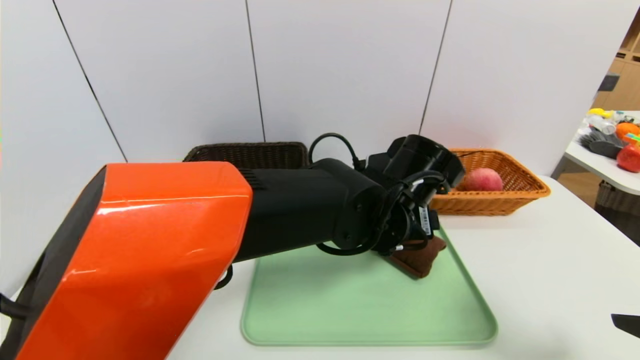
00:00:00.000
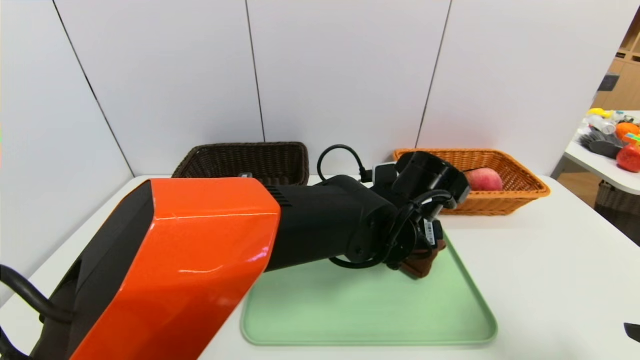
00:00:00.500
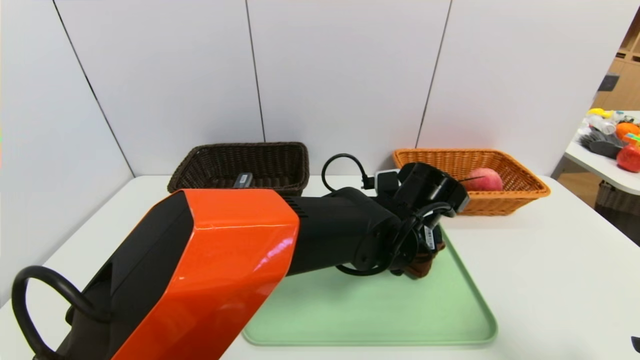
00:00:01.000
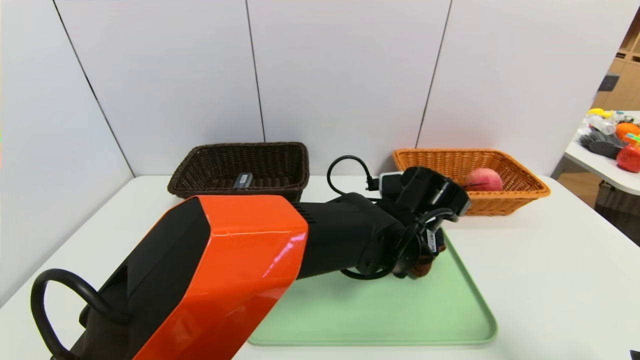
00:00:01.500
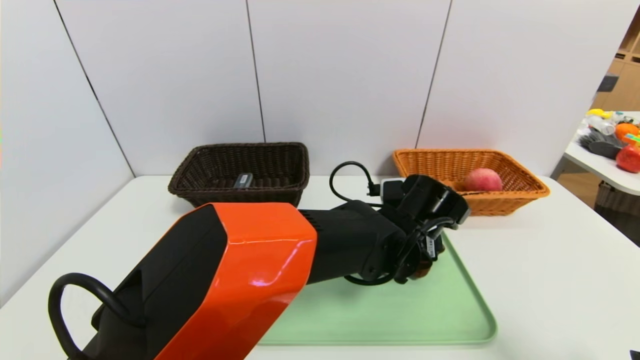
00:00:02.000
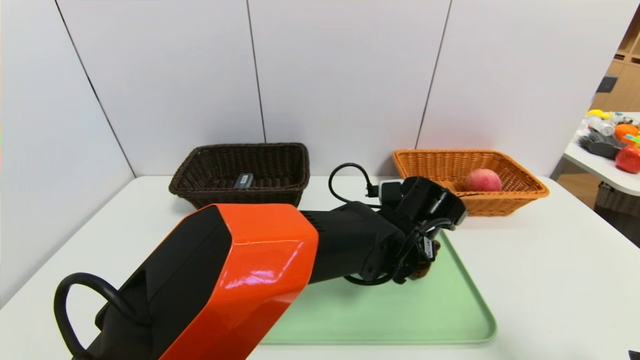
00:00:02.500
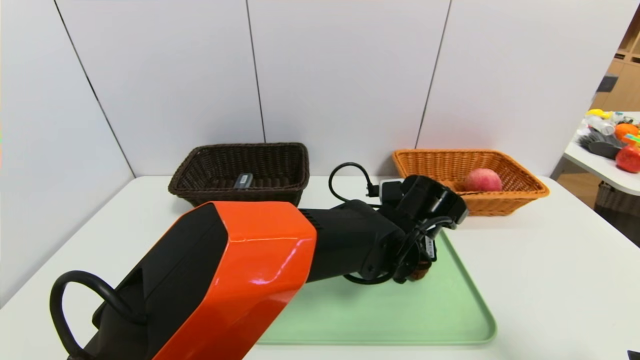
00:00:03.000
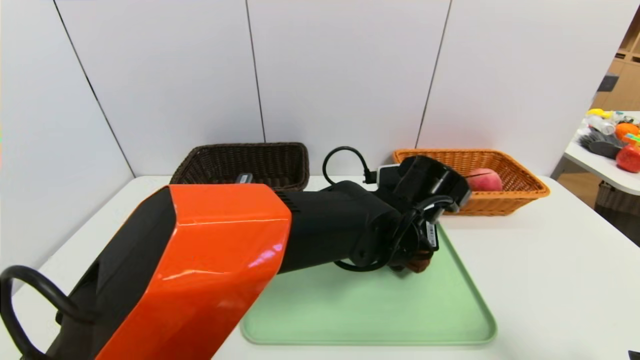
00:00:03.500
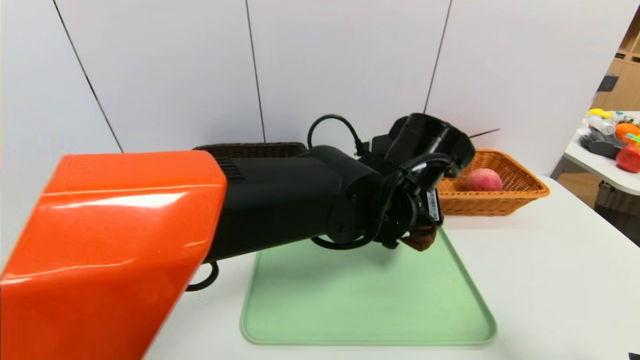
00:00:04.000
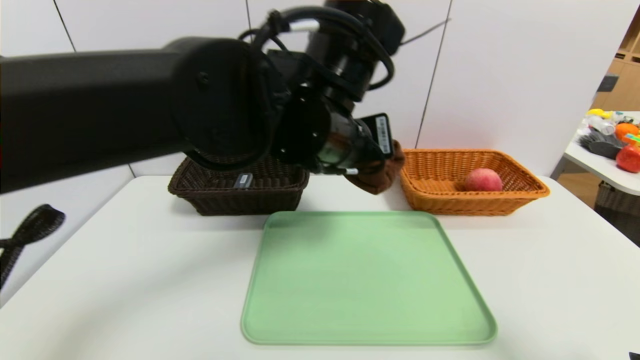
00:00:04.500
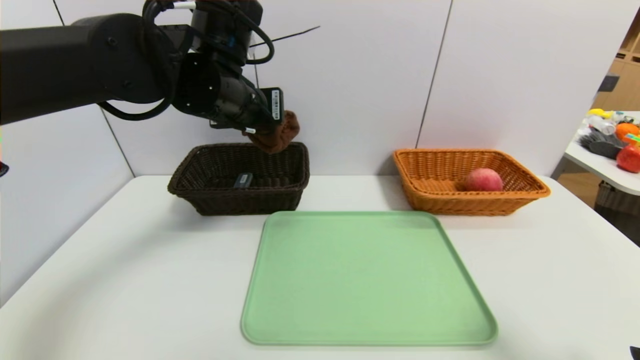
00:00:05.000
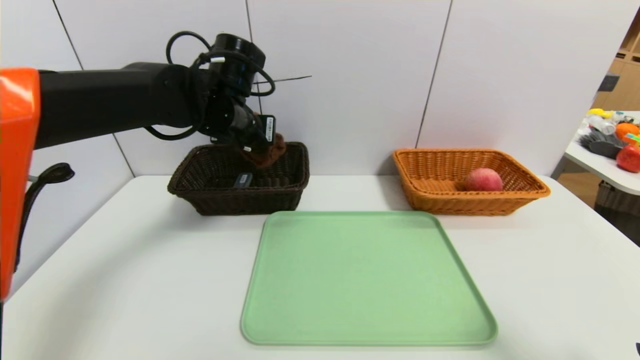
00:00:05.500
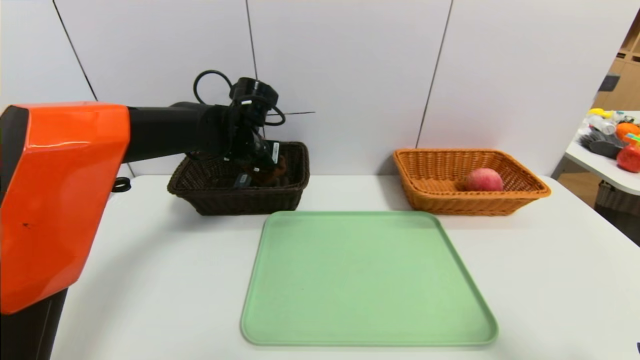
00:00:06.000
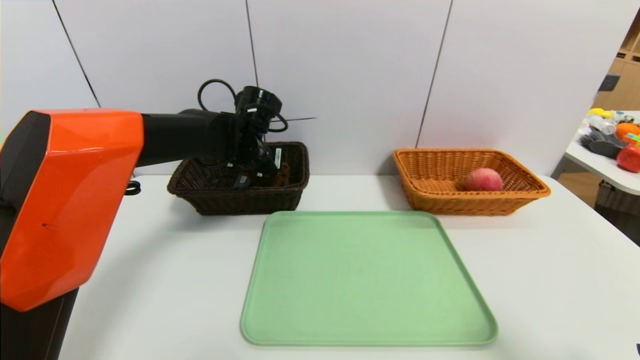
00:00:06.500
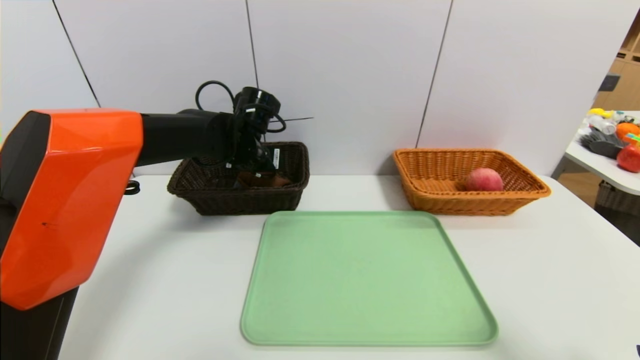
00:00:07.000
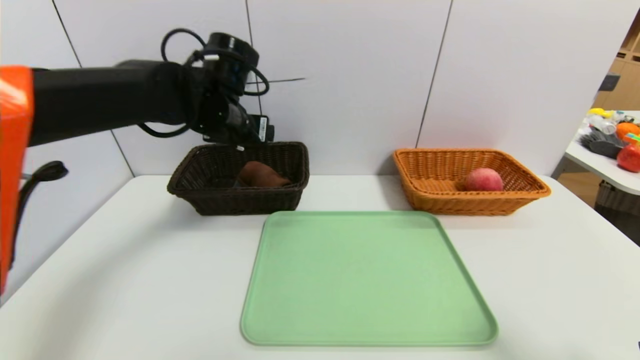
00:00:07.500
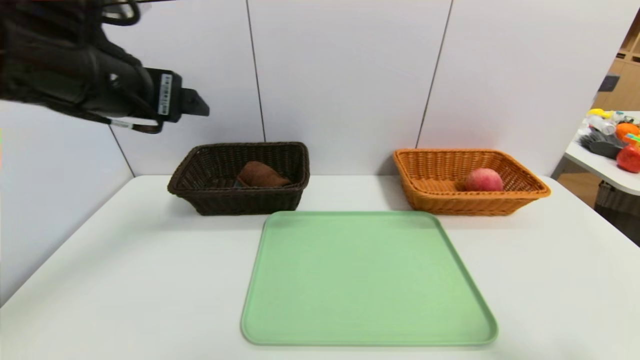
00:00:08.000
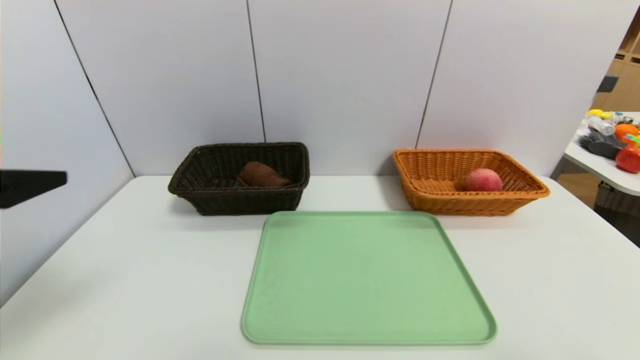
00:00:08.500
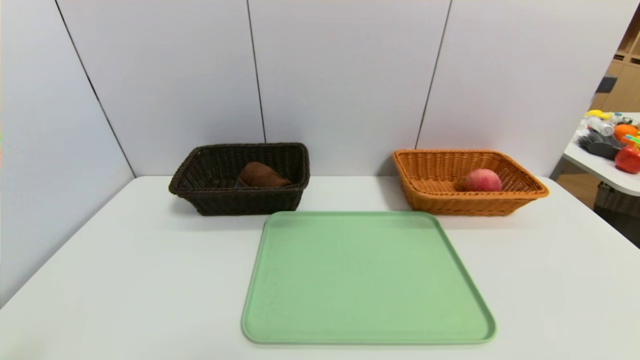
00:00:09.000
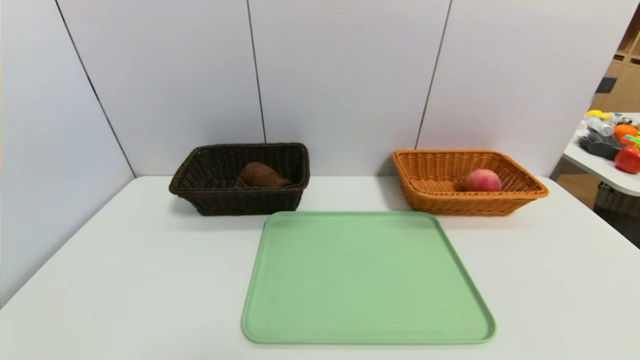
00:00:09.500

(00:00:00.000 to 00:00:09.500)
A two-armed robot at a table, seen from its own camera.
Task of the whole recording: place the food in the right basket with the right gripper, and place the non food items in the left basket with the left gripper.
Step, 00:00:00.000 - 00:00:06.500: Grasp the brown towel and put it in the left basket.
00:00:00.000 - 00:00:02.000: The left gripper travels downward by roughly 5 cm.
00:00:02.000 - 00:00:04.000: The left gripper heads upward, covering about 10 cm, and closes.
00:00:04.000 - 00:00:05.500: The left gripper goes some 25 cm to the left and forward.
00:00:05.500 - 00:00:07.500: The left gripper travels downward and back again, approximately 5 cm each way, and opens.
00:00:07.500 - 00:00:09.500: The left gripper moves backward and to the left, some 40 cm. Meanwhile the right gripper is displaced backward by some 10 cm.

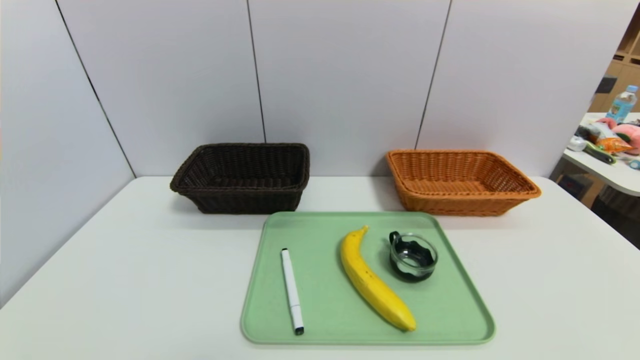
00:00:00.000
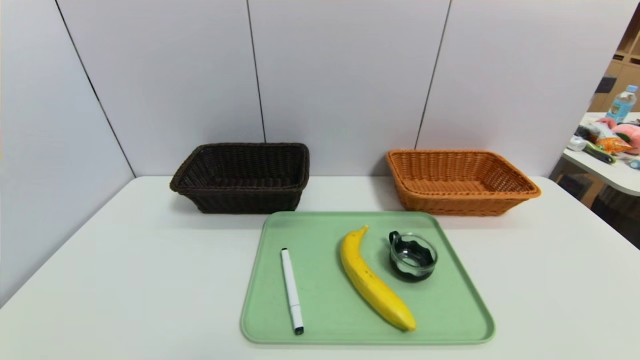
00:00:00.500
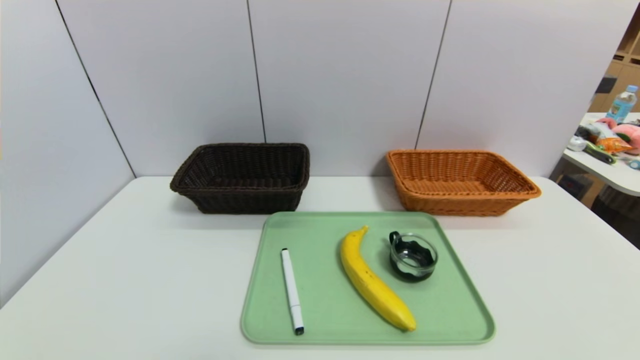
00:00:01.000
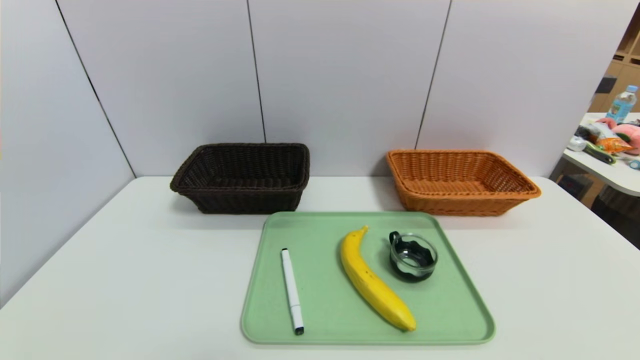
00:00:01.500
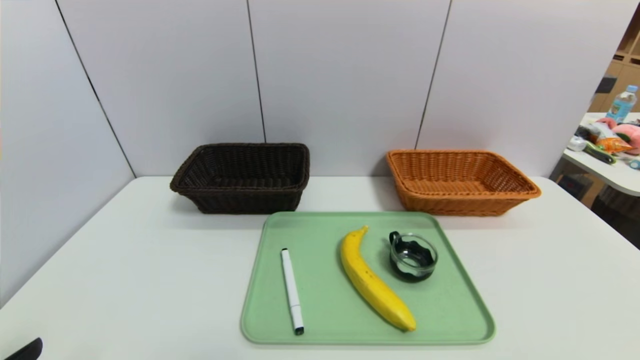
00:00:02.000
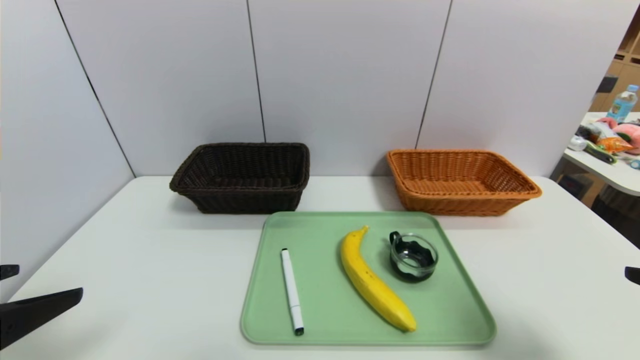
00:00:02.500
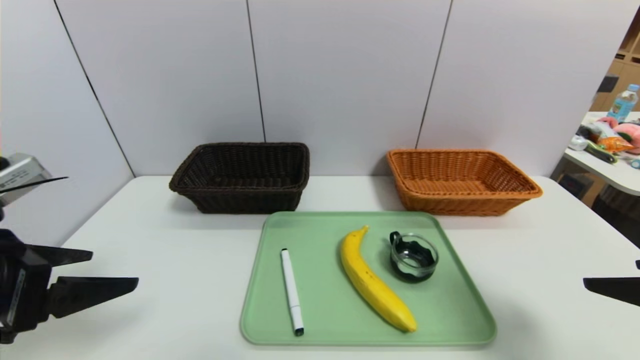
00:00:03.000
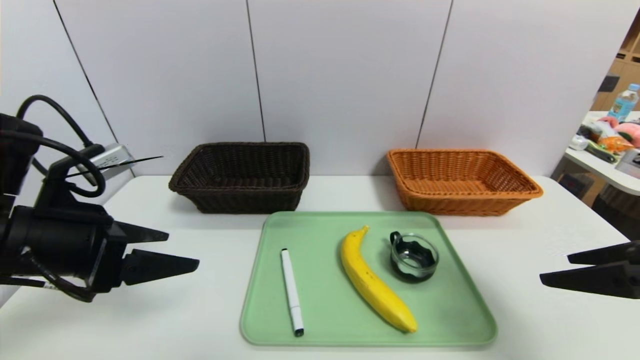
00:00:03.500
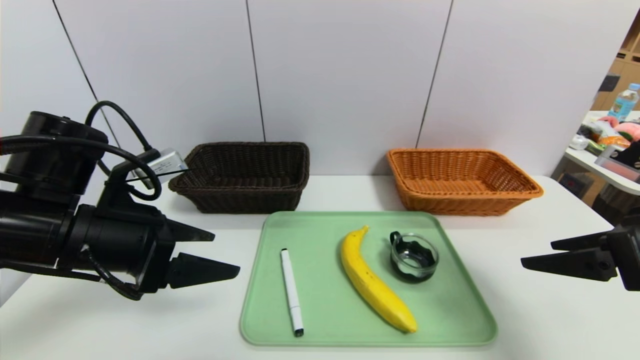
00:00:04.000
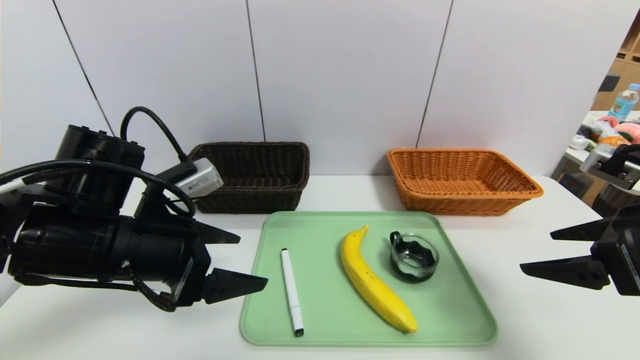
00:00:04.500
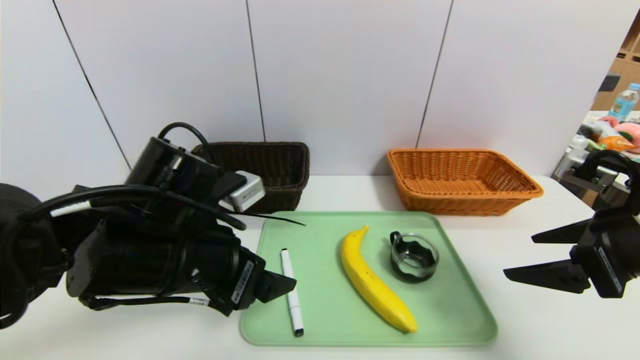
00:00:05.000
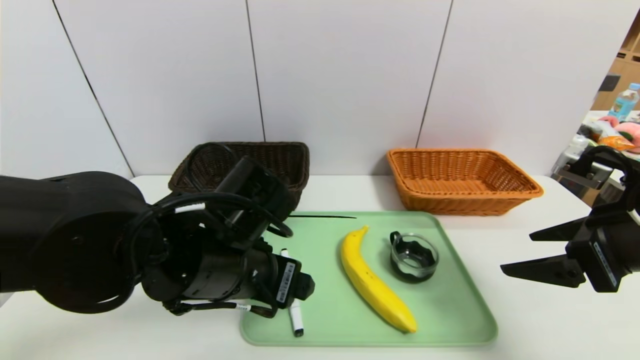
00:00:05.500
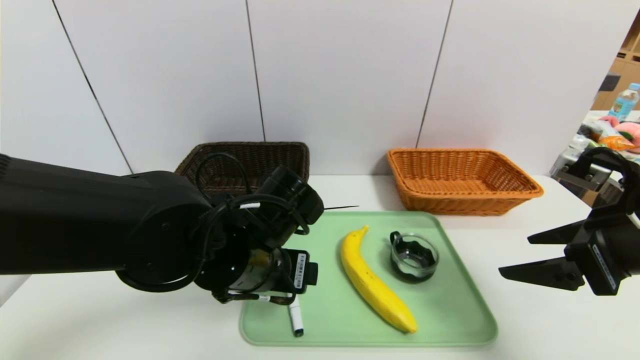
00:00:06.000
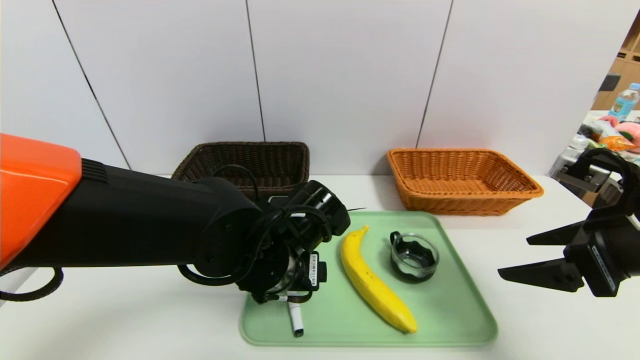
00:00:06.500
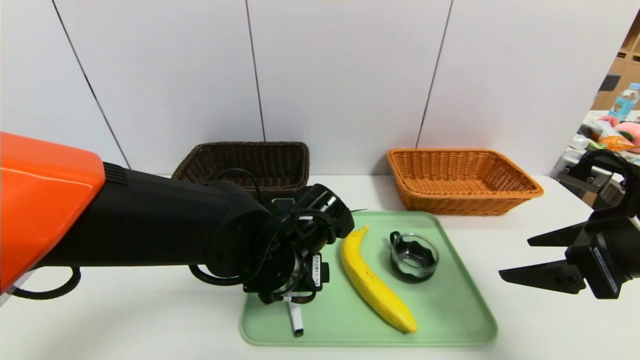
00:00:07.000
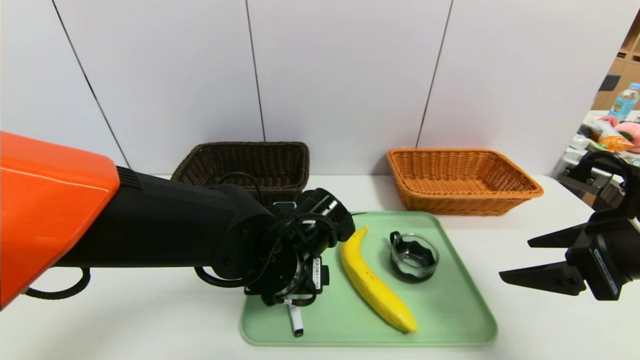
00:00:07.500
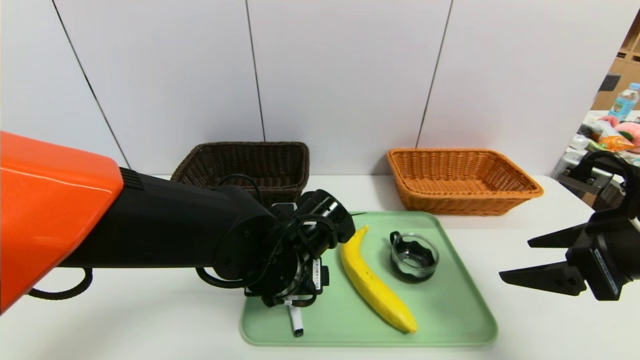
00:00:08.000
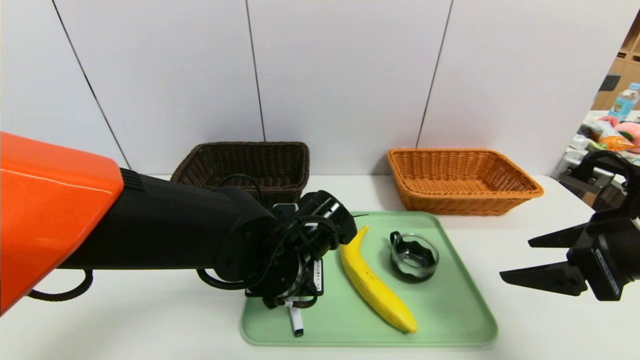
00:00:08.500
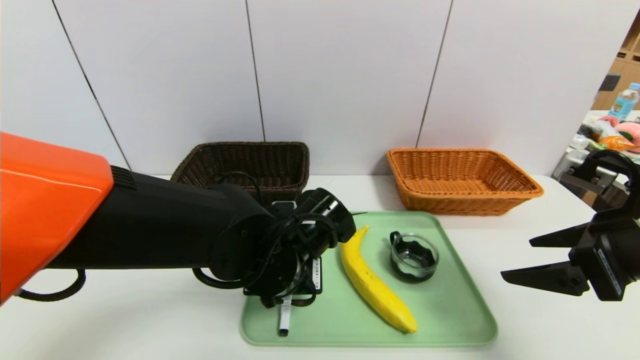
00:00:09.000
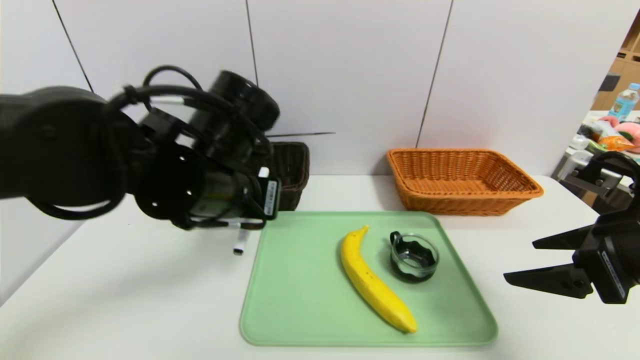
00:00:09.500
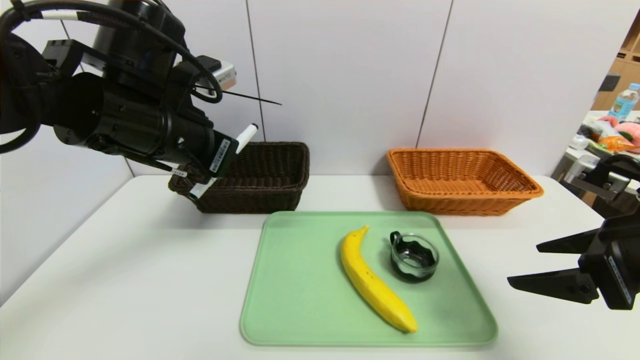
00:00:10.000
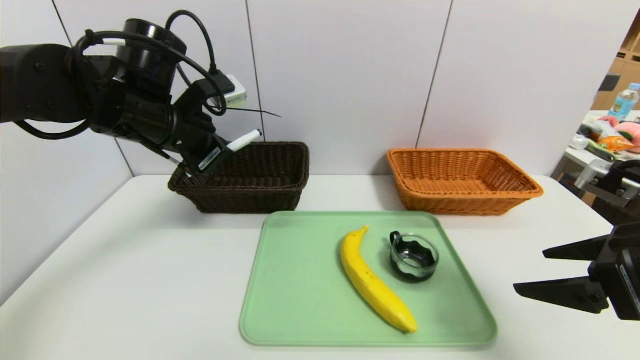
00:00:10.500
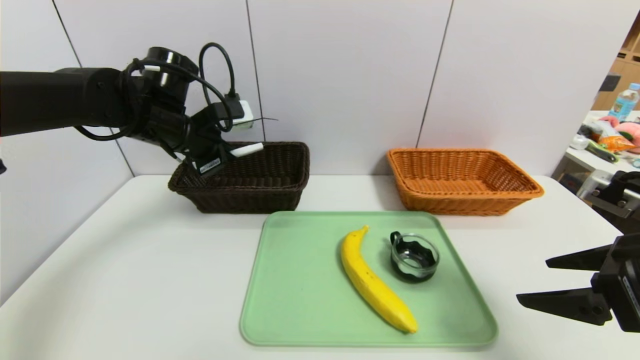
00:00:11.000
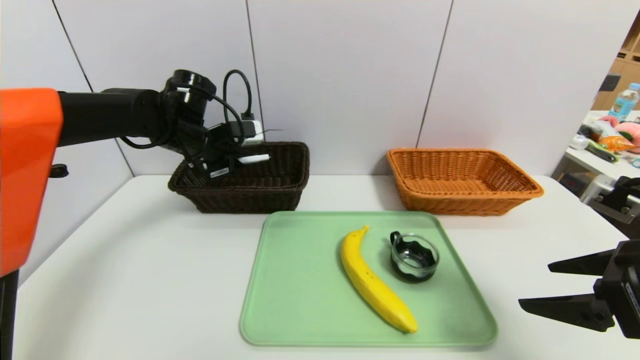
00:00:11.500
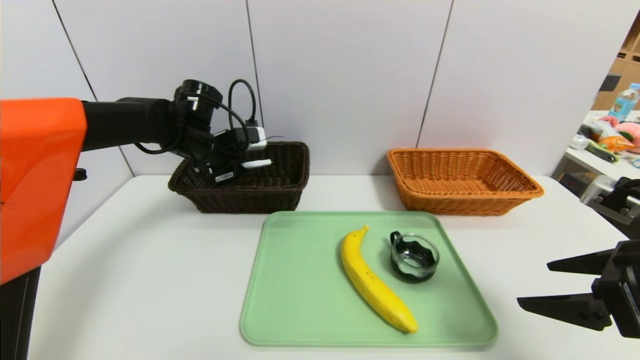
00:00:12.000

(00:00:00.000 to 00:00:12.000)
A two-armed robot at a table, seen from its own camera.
Task of the whole recording: place the food in the right basket with the right gripper, and place the non food items in the left basket with the left gripper.
00:00:02.000 - 00:00:04.000: Both grippers move forward, approximately 20 cm.
00:00:04.000 - 00:00:06.000: The left gripper heads to the right, covering some 15 cm.
00:00:06.000 - 00:00:08.000: The grippers stay close to where they were, moving slightly.
00:00:08.000 - 00:00:10.000: The left gripper shifts roughly 20 cm upward and to the left, and closes its fingers.
00:00:10.000 - 00:00:12.000: The left gripper shifts some 20 cm forward and downward.
